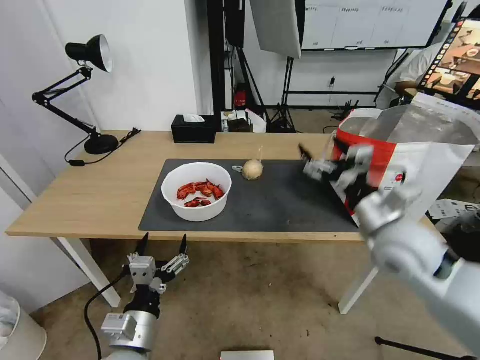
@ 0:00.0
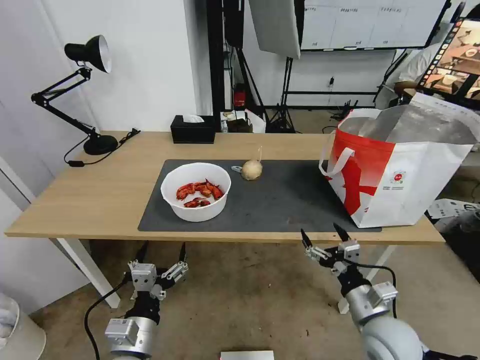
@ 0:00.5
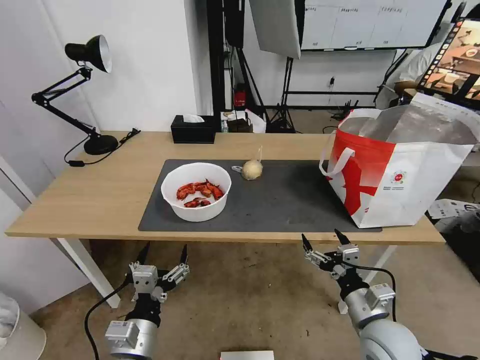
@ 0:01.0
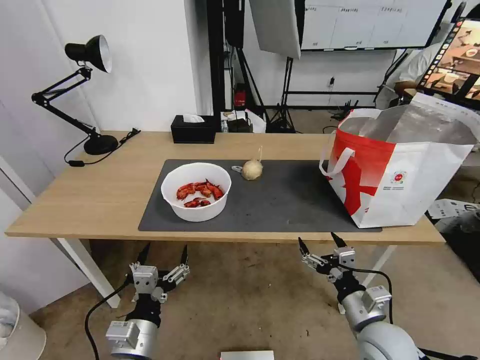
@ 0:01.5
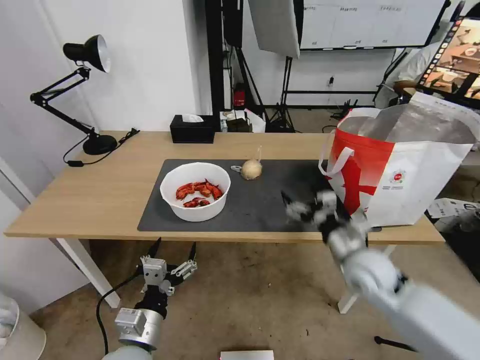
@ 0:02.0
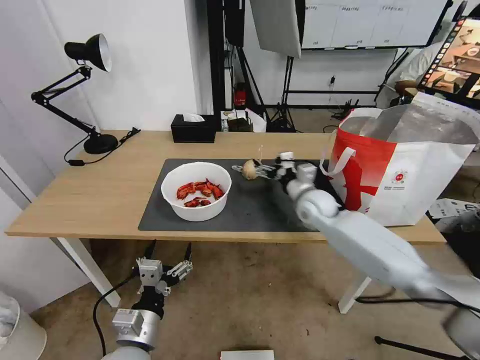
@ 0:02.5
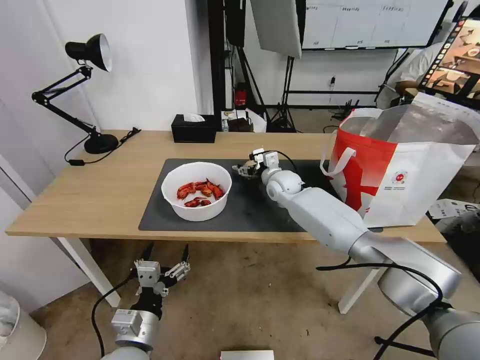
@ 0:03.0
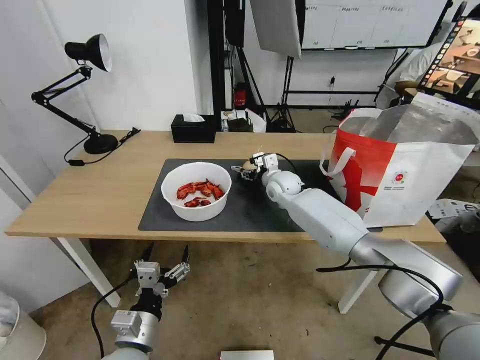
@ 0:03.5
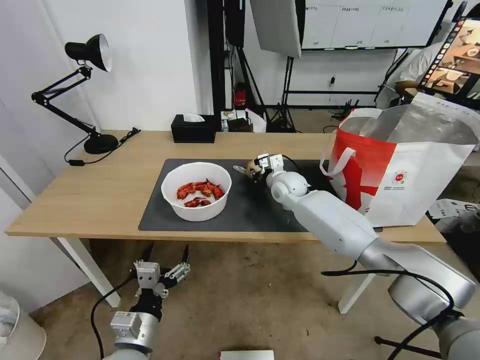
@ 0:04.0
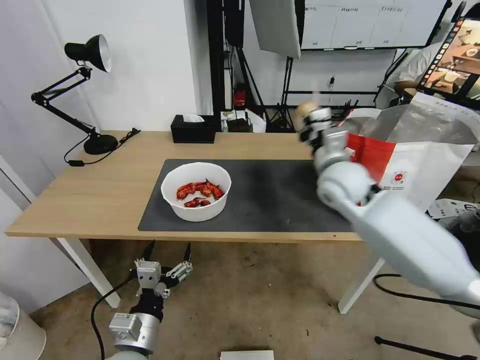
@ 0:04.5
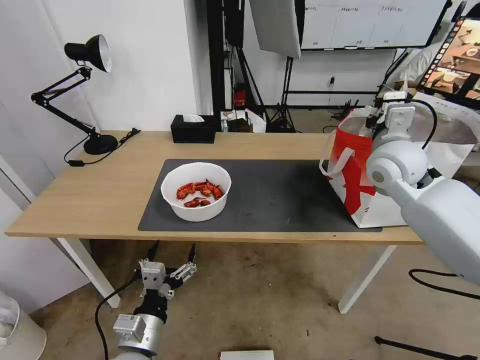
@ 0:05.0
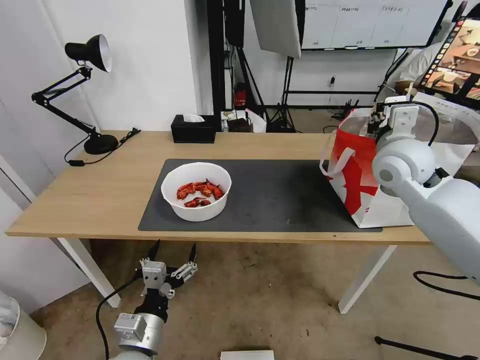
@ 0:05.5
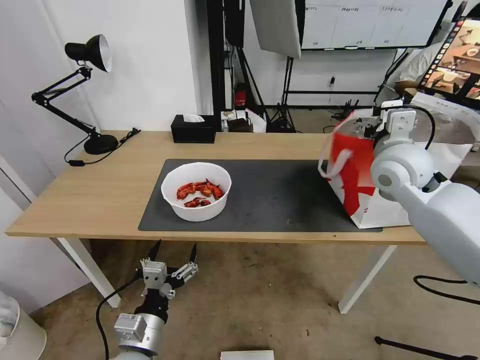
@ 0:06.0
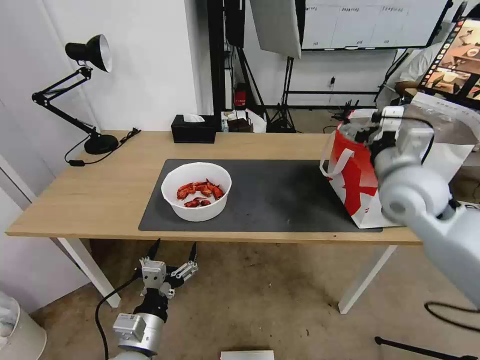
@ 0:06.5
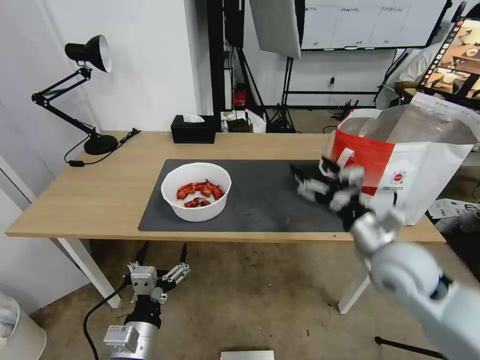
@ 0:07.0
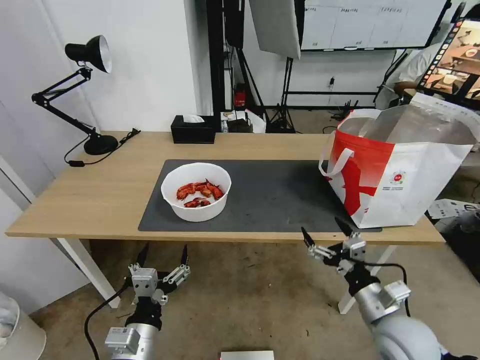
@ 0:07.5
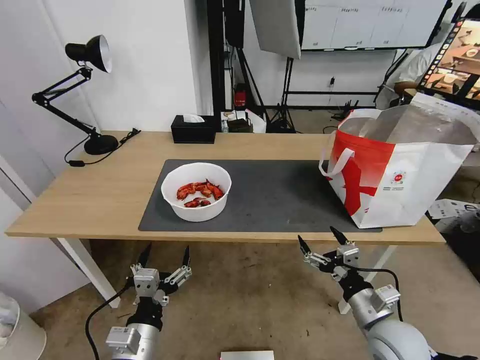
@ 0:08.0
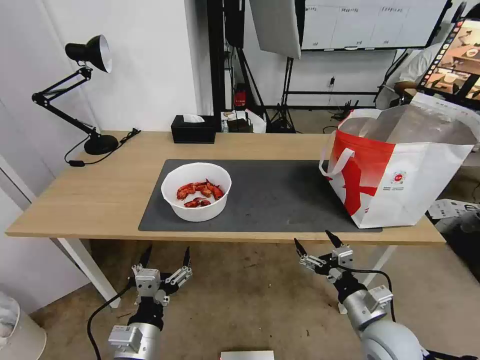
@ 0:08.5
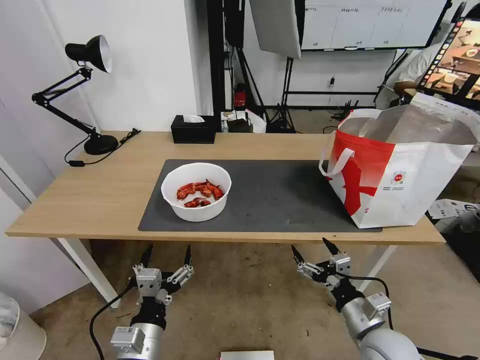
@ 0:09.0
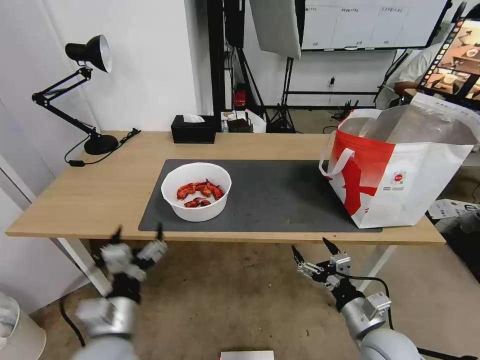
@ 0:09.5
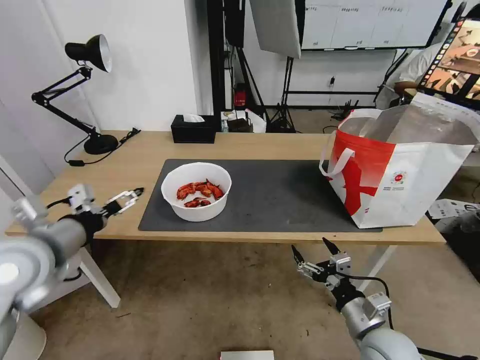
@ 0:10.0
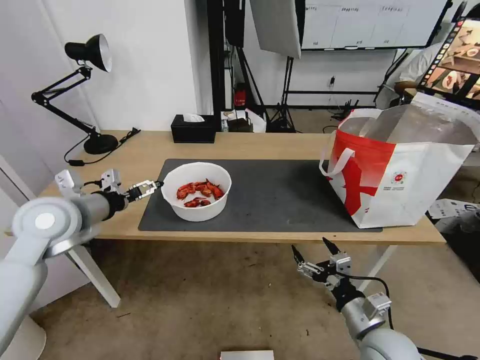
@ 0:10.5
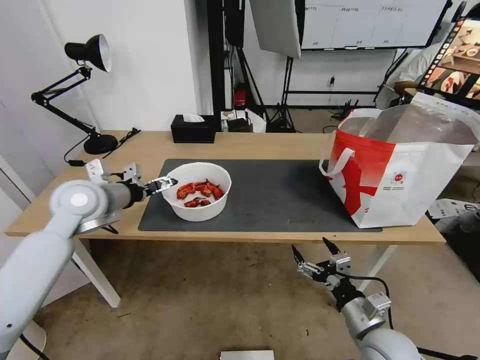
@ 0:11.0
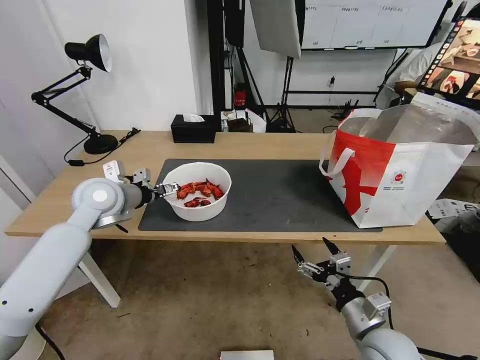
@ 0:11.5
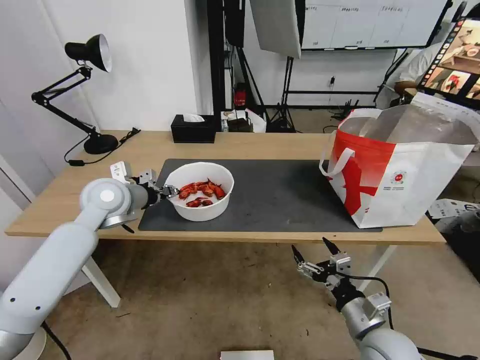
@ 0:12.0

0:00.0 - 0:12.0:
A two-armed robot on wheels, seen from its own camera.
Task of the whole recording: Pick up the trash from the table and place it into the takeout bag.
0:00.0 - 0:02.0: The right gripper travels downward by approximately 10 cm.
0:02.0 - 0:04.0: The right gripper shifts approximately 30 cm forward and to the left, and closes up.
0:04.0 - 0:06.0: The right gripper shifts about 25 cm upward, to the right and backward, and opens up.
0:06.0 - 0:08.0: The right gripper moves downward and backward, approximately 35 cm.
0:08.0 - 0:10.0: The left gripper travels upward, to the left and forward by approximately 25 cm.
0:10.0 - 0:12.0: The left gripper heads forward, covering some 15 cm, and closes.

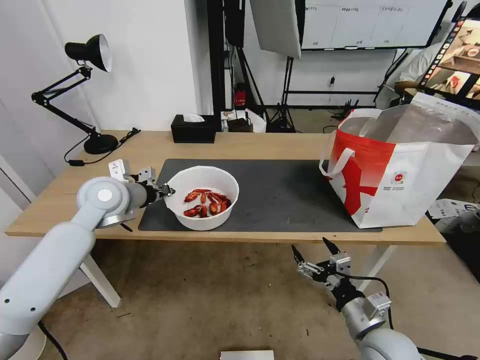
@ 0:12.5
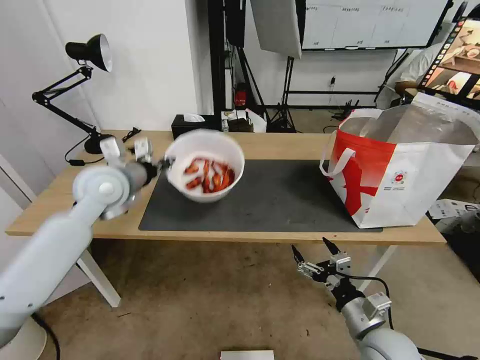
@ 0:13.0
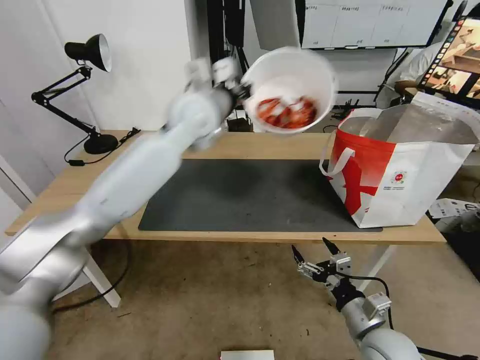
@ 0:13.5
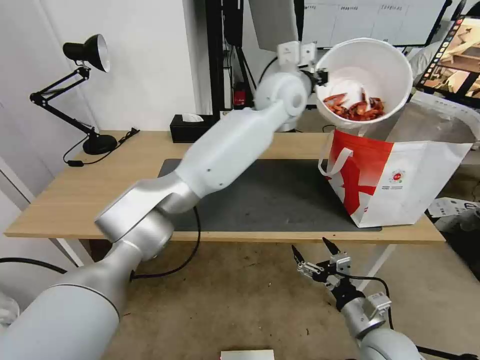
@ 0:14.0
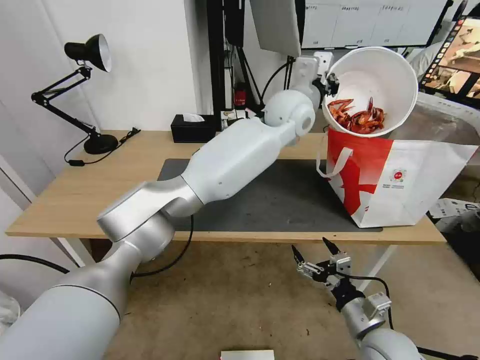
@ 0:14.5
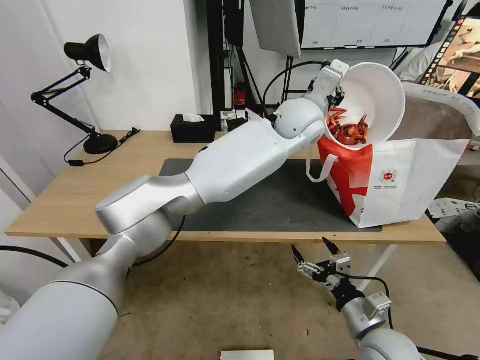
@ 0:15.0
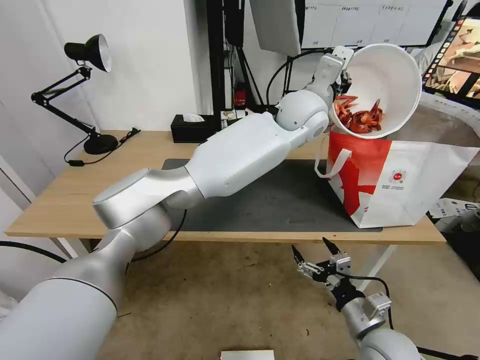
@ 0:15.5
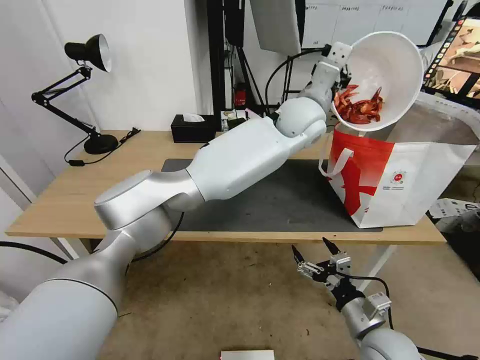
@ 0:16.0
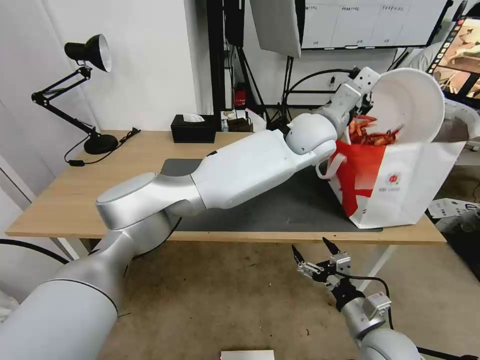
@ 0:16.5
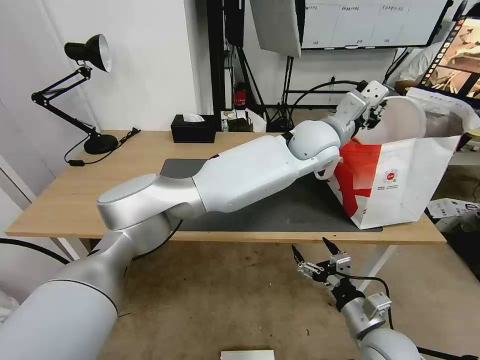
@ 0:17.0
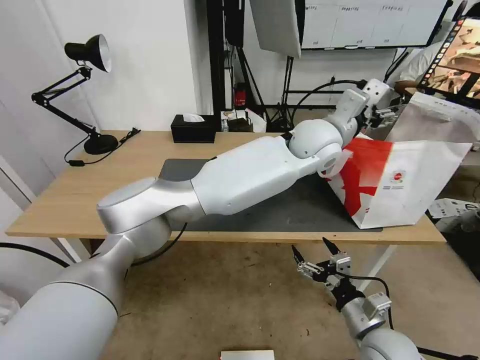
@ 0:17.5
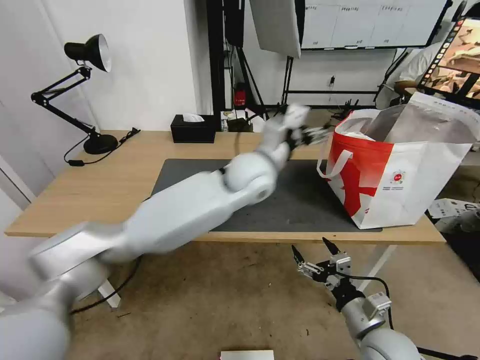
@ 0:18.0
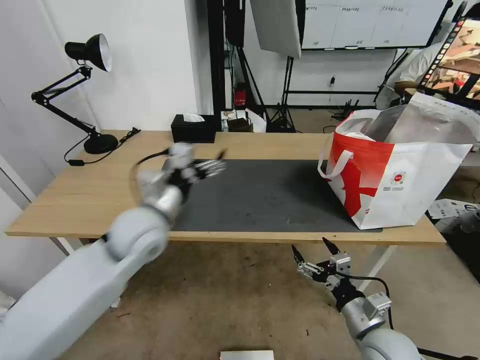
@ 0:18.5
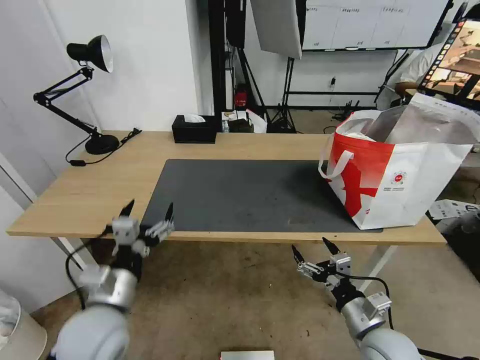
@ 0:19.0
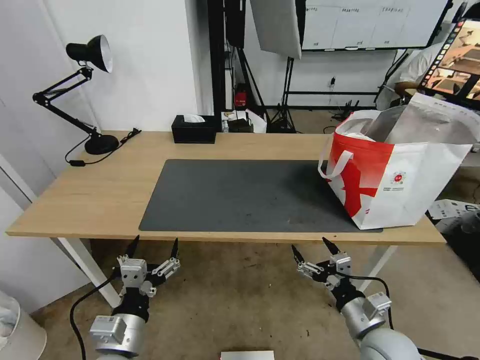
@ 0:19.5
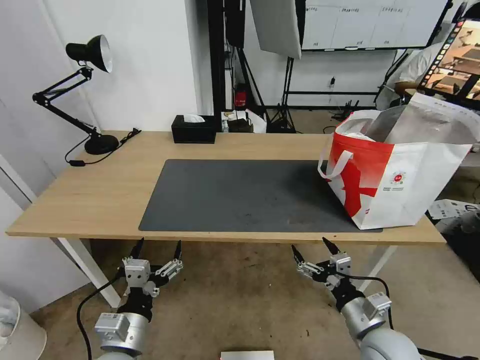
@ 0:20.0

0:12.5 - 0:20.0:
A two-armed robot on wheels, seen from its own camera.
Task of the whole recording: Pick up the trash from the table and place it into the takeout bag.
0:12.5 - 0:14.5: The left gripper travels to the right by roughly 40 cm.
0:14.5 - 0:16.5: The left gripper moves approximately 5 cm.
0:16.5 - 0:18.0: The left gripper goes roughly 15 cm to the left, downward and backward, and opens.
0:18.0 - 0:20.0: The left gripper heads backward, to the left and downward, covering some 40 cm.
